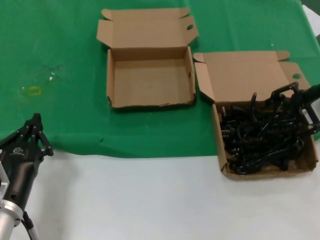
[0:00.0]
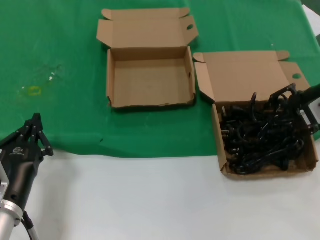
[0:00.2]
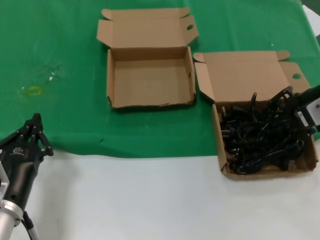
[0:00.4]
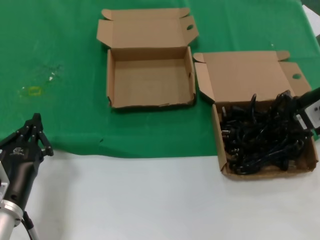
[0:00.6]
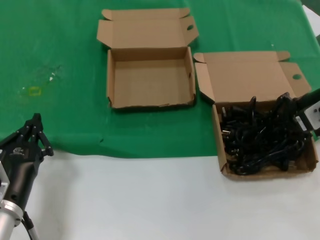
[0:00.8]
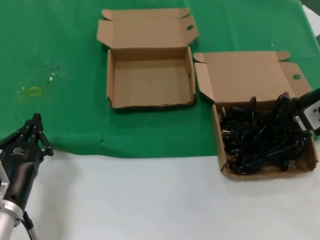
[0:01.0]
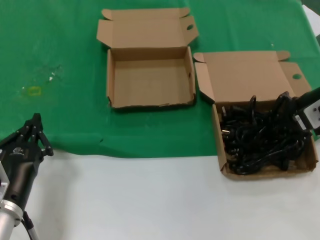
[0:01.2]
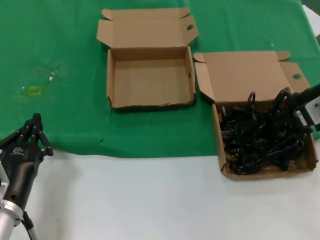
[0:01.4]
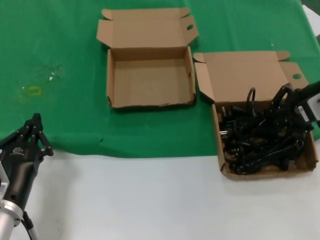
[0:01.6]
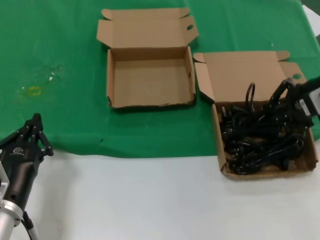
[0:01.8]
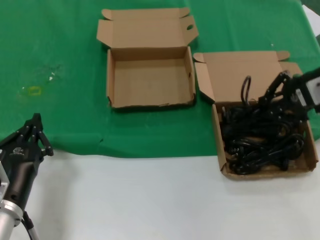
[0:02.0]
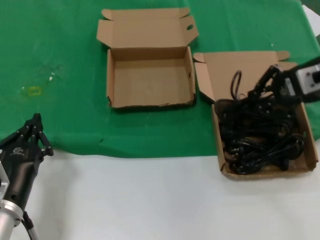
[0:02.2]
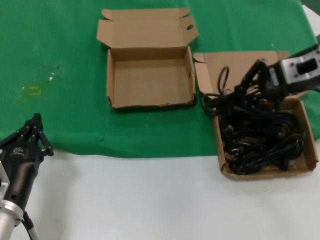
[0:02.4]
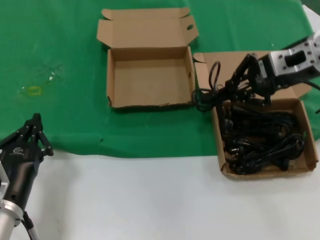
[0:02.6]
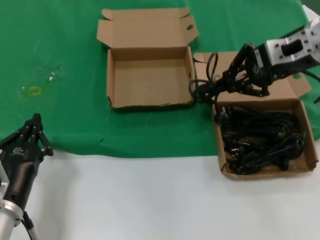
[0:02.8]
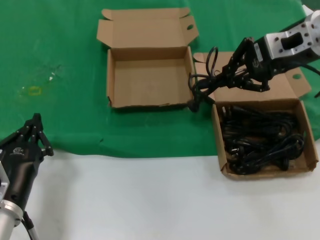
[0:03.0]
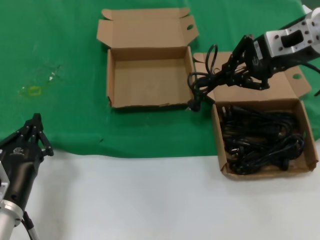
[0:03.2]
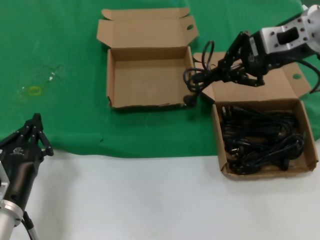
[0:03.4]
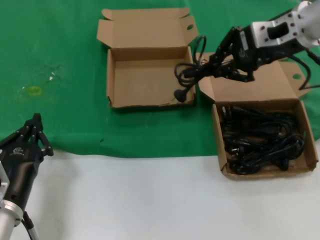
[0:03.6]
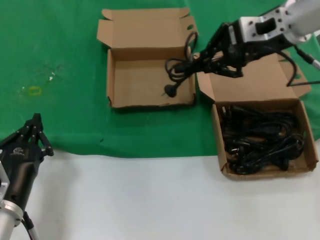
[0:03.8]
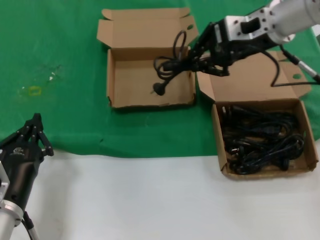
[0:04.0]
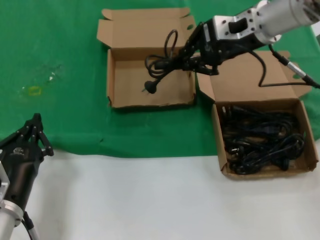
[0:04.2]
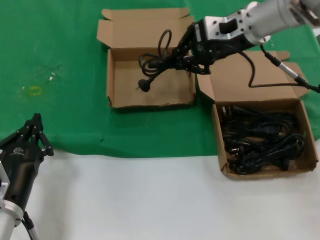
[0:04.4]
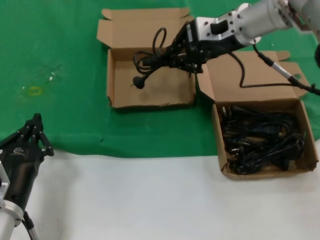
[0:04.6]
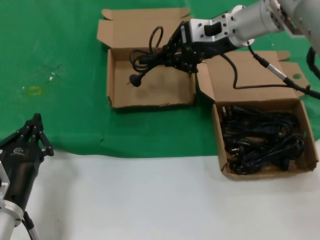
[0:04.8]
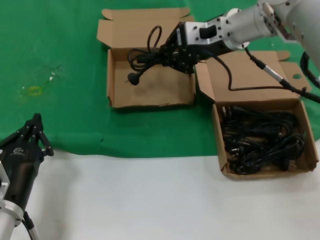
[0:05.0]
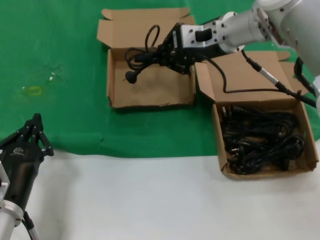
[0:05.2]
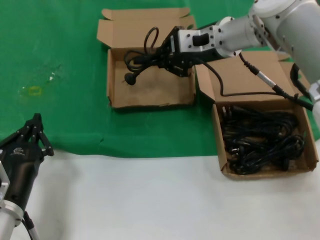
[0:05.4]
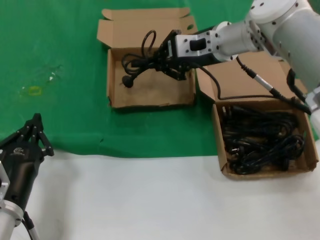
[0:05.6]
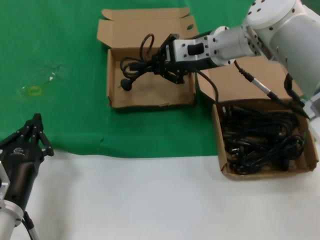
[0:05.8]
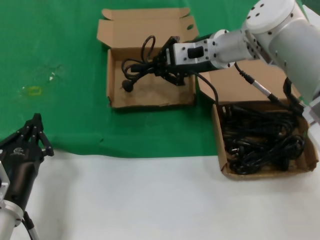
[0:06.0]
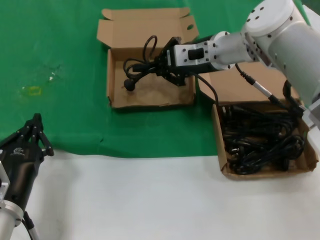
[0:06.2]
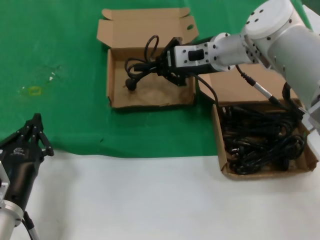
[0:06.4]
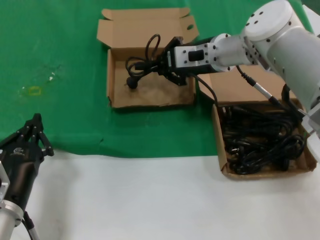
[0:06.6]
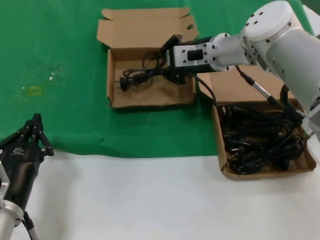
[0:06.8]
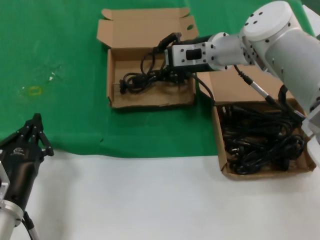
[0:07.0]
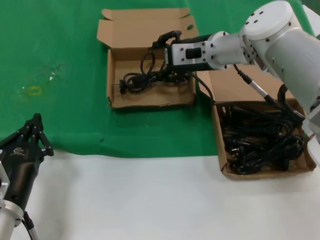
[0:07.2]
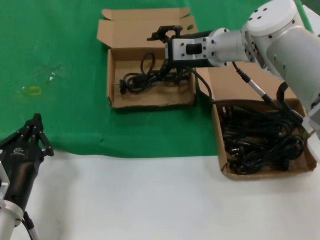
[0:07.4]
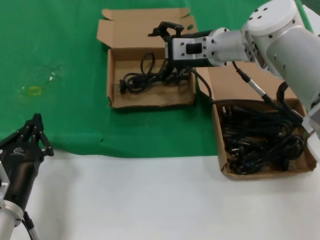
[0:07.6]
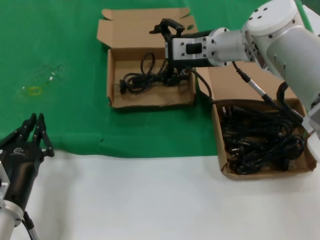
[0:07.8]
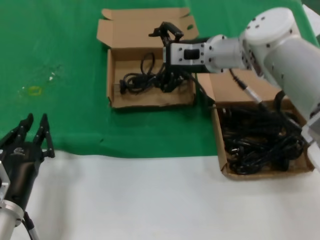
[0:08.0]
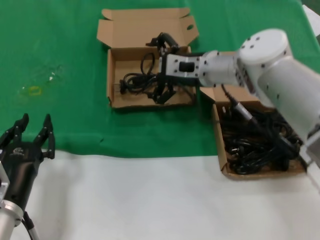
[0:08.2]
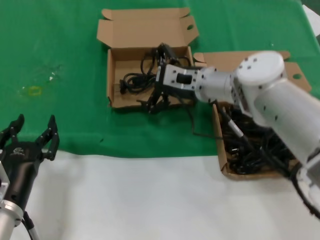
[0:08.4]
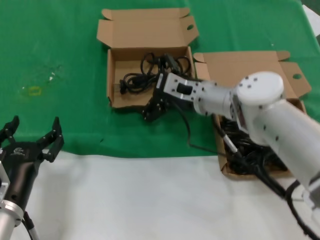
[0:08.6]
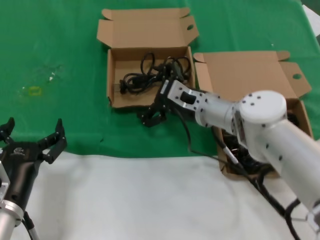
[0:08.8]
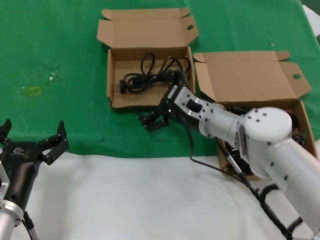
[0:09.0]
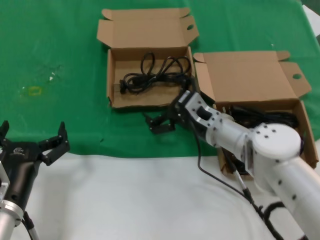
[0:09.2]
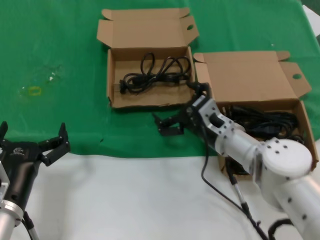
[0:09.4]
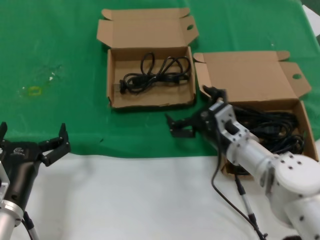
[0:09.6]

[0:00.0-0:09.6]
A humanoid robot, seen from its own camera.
Task of the whole recording: take the parts from the box containing them and put them into an empty box.
Step, 0:00.0 to 0:07.6: Place the data cable in the another box.
0:00.0 to 0:01.6: The hands make only small movements.
0:01.6 to 0:03.2: The right hand is displaced upward and to the left by approximately 10 cm.
0:03.2 to 0:04.8: The right hand shifts roughly 15 cm to the left and forward.
0:04.8 to 0:06.4: The right hand travels downward by some 5 cm.
0:06.4 to 0:08.0: There are only small adjustments of the hands.
0:08.0 to 0:09.6: The right hand shifts some 20 cm downward and backward.

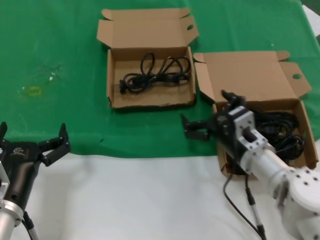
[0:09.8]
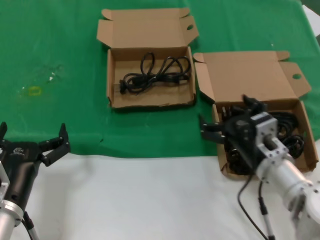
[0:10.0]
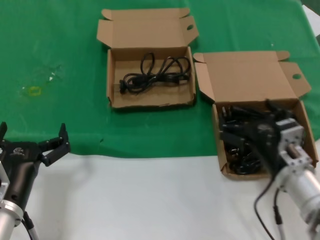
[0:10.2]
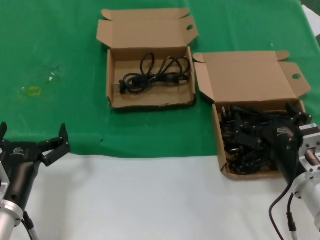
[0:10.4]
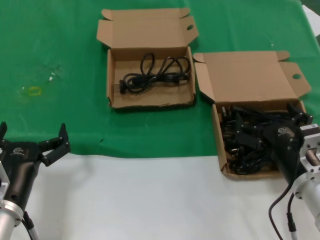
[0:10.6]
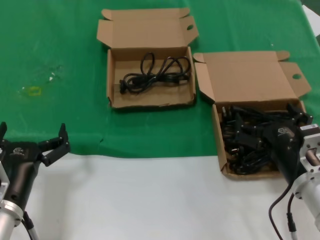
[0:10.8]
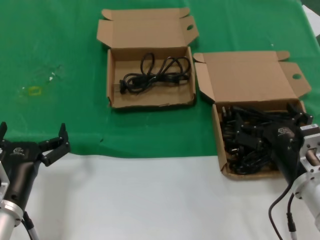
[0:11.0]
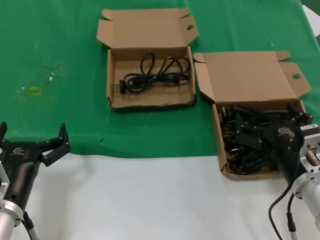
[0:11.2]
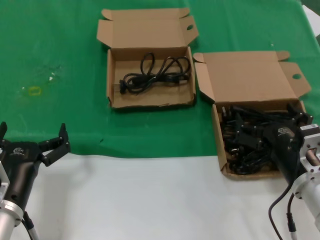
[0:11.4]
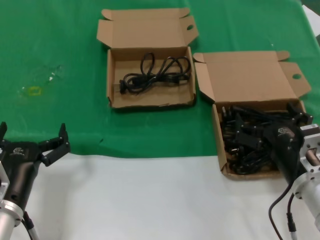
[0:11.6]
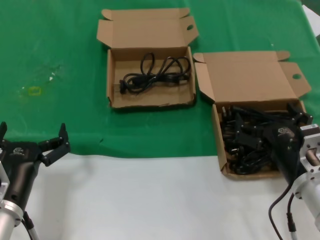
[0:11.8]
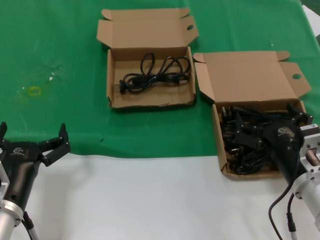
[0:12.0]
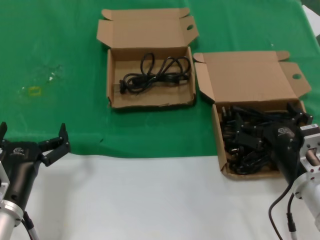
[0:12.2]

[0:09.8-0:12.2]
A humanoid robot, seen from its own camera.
Task of the whole recording: take the parts from the box containing them and put them into an empty box.
0:09.8 to 0:11.0: The right hand goes roughly 10 cm backward and to the right.
0:11.0 to 0:12.2: Neither hand changes place.
